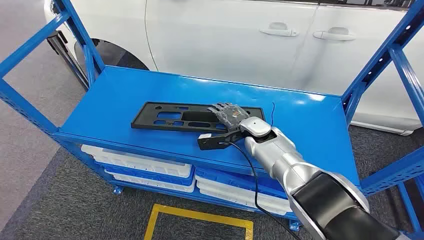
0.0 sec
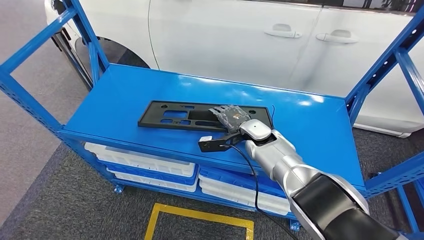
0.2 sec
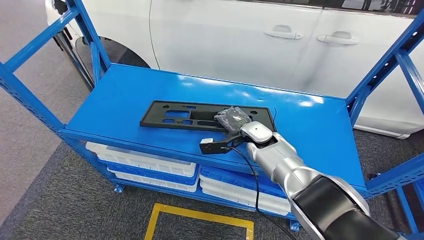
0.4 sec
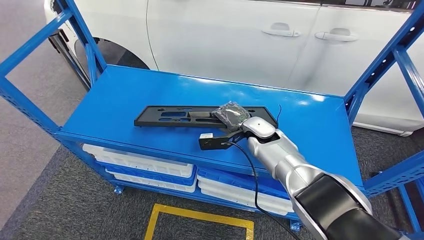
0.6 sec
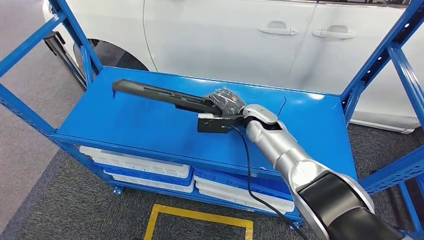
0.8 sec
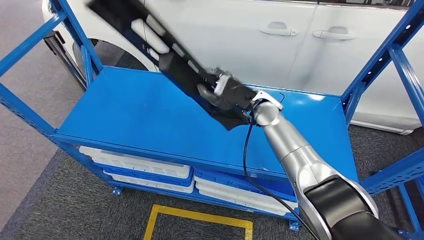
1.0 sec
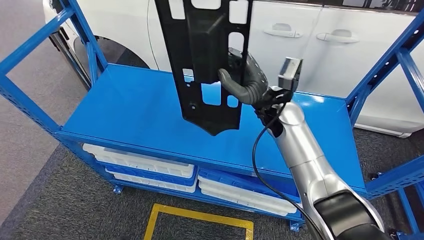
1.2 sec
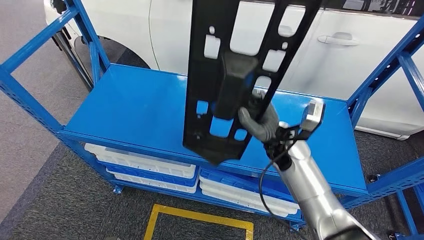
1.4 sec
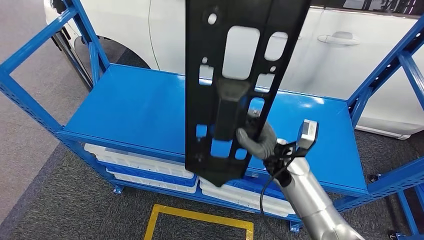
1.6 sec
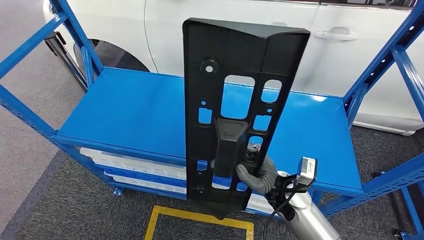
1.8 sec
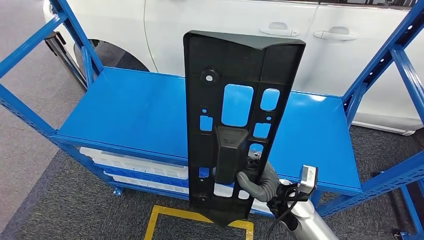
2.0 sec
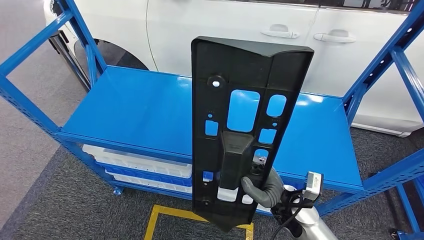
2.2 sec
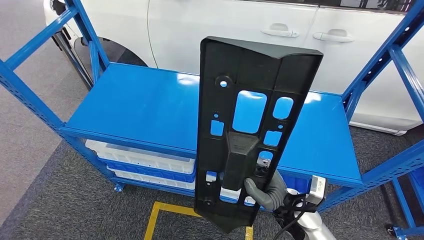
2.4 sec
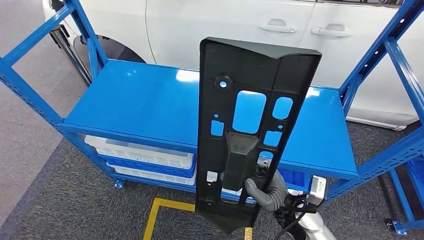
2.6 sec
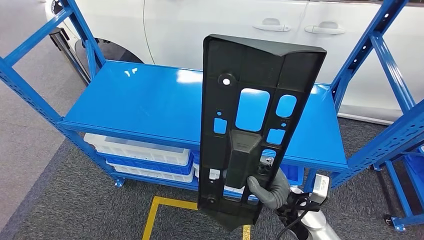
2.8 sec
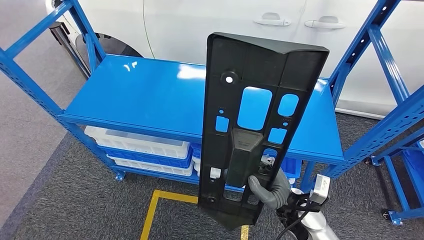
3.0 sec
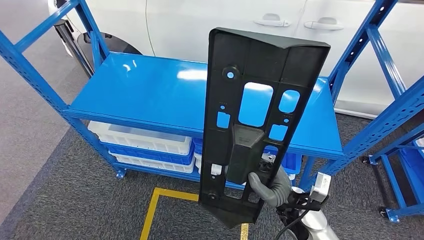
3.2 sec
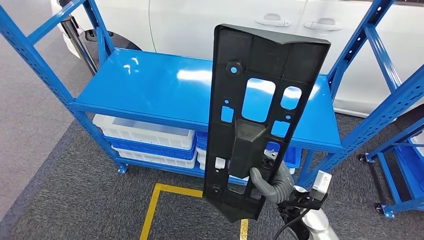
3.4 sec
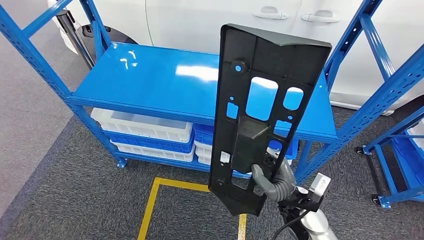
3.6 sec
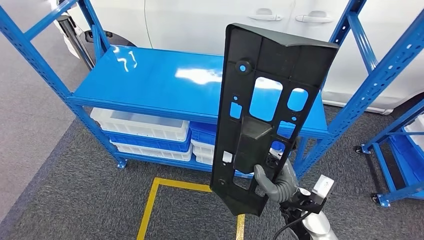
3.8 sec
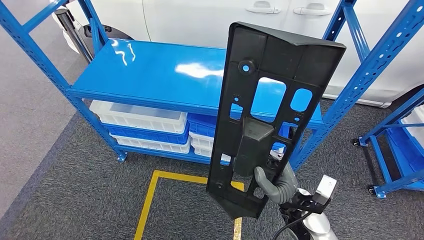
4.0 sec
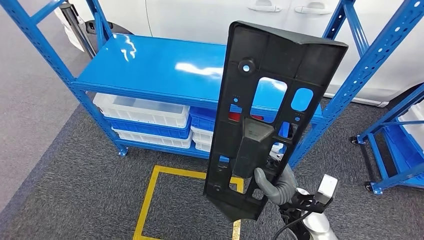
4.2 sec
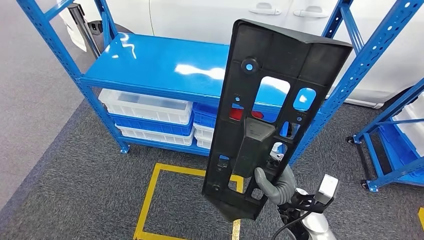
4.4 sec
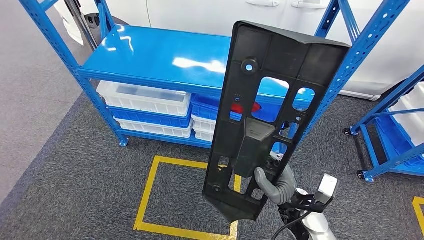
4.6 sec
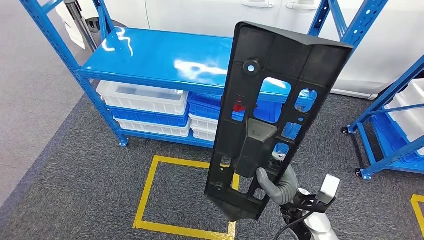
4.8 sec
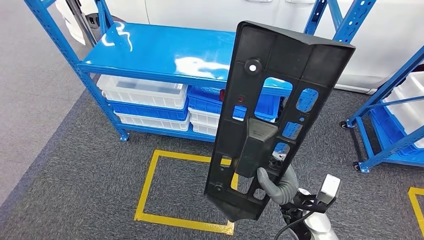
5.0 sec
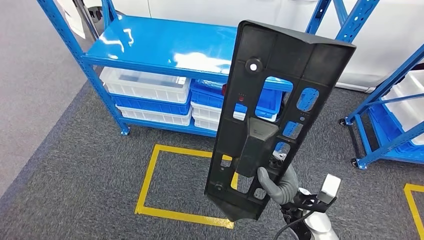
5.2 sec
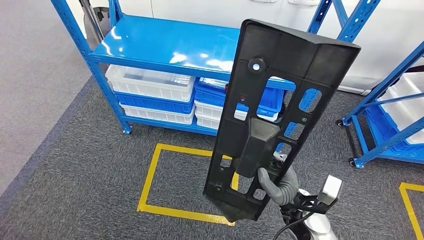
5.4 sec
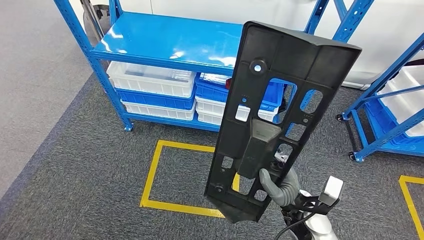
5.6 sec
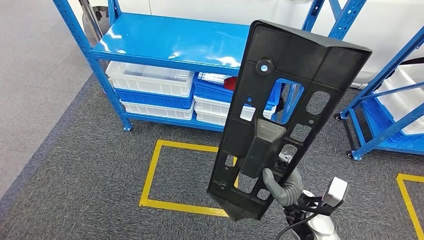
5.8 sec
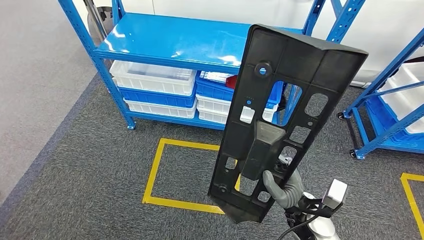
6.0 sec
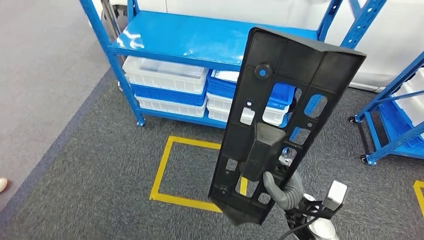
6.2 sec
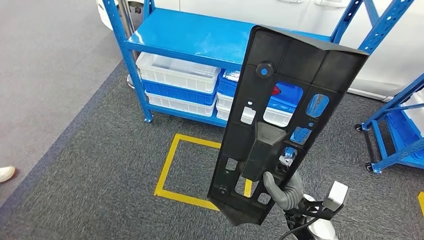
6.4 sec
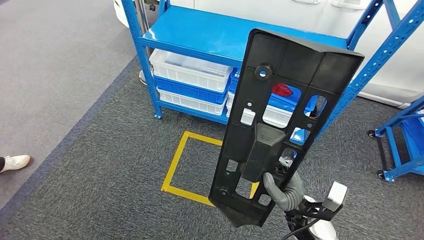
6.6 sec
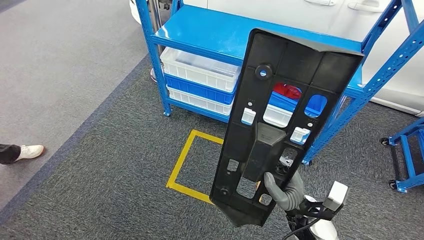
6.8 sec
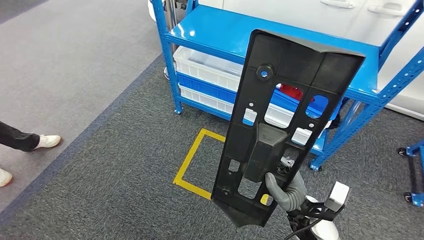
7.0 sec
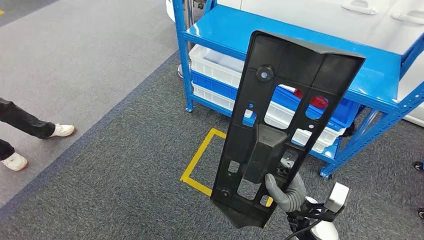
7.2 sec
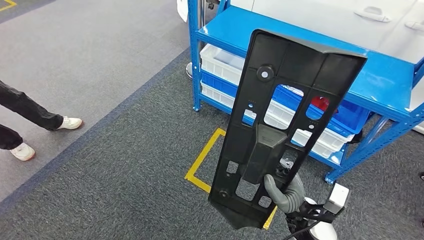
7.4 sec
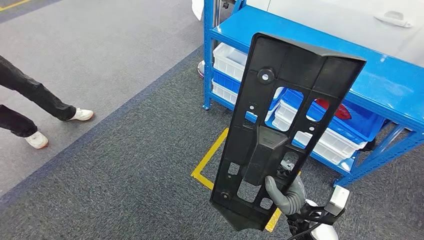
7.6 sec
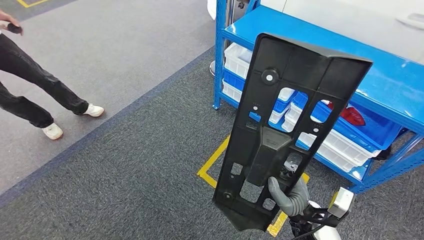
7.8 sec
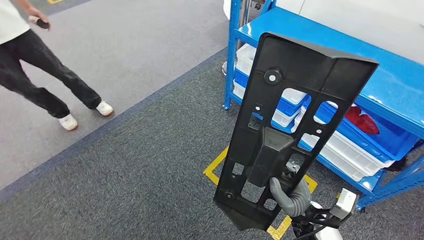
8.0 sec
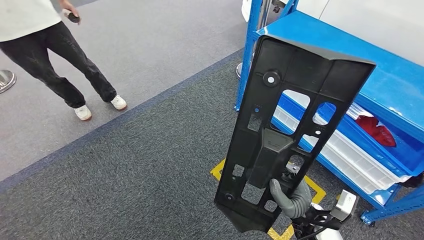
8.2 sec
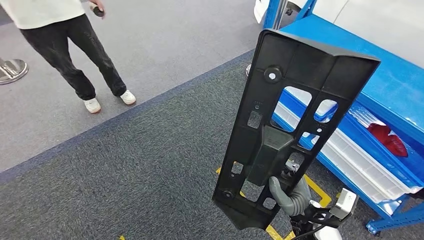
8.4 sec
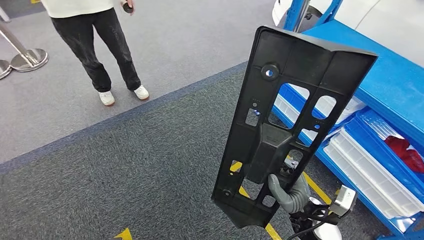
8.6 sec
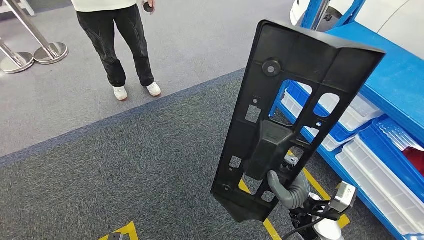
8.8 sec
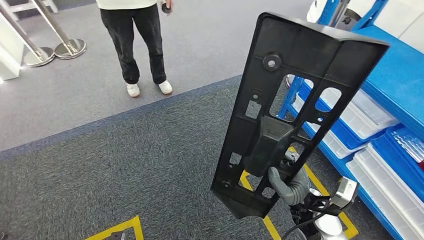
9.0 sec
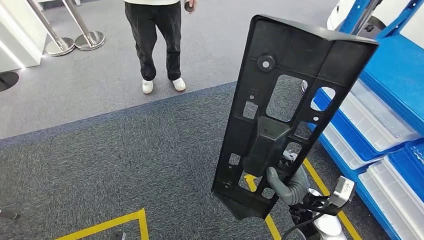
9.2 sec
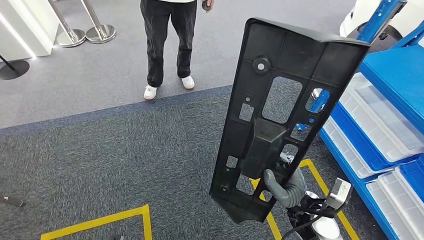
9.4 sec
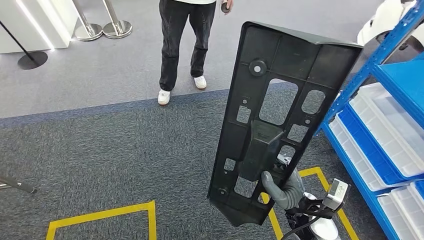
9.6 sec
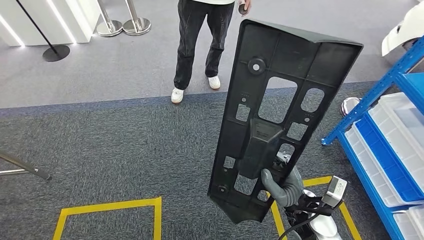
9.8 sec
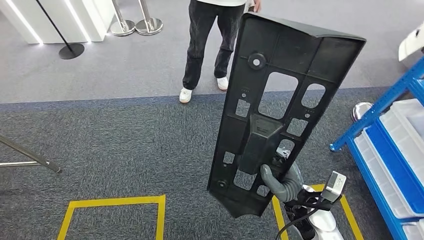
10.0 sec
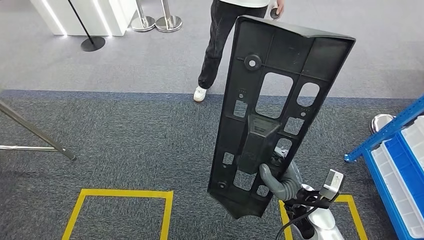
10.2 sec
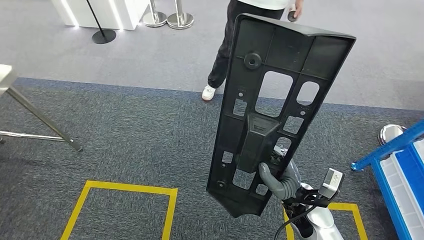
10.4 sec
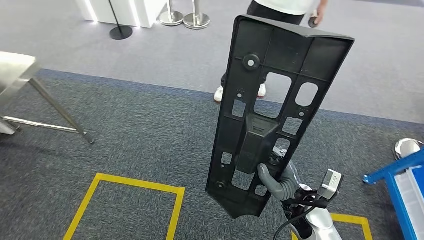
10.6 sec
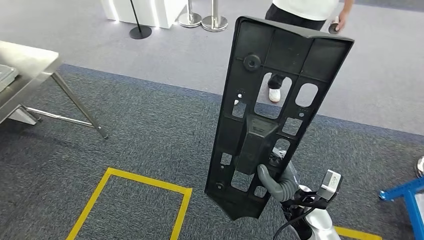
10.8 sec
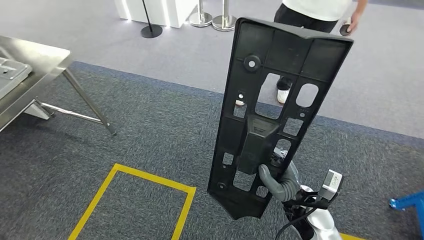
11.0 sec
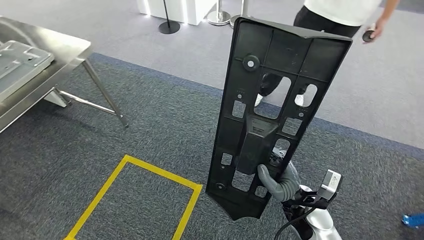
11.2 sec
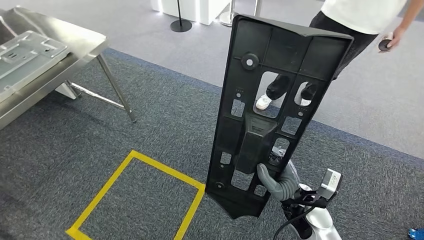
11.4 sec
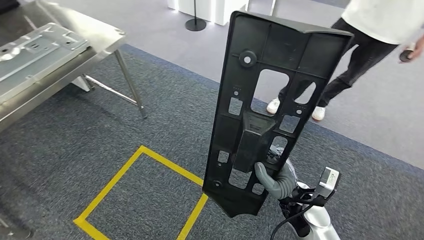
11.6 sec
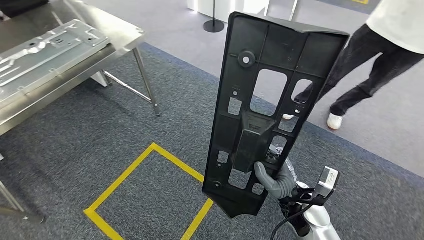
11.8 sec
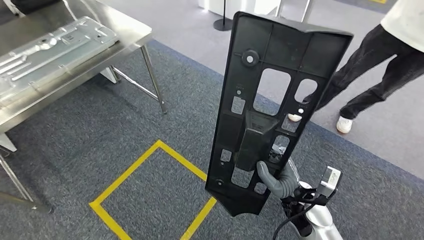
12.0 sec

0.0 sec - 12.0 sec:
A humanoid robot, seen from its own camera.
Step, 0.0 sec - 2.4 sec: Pick up the large material from the shelf.

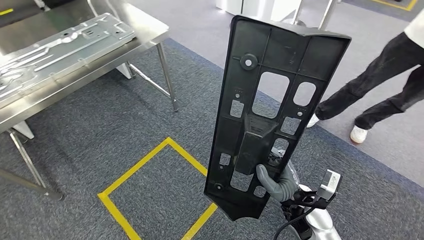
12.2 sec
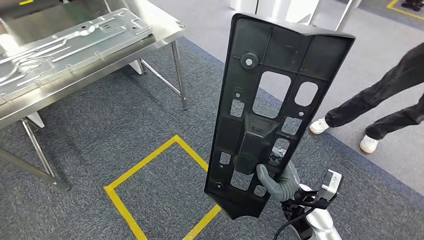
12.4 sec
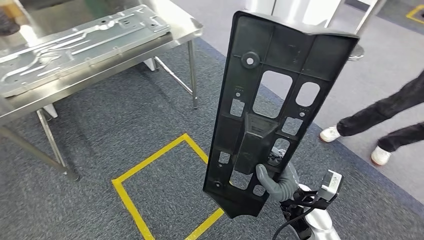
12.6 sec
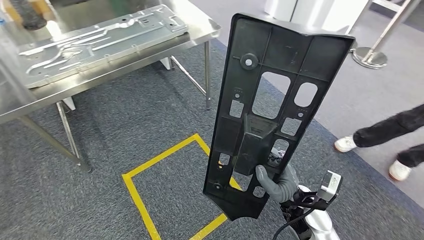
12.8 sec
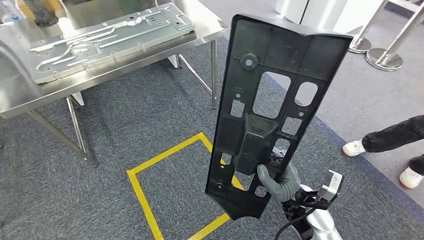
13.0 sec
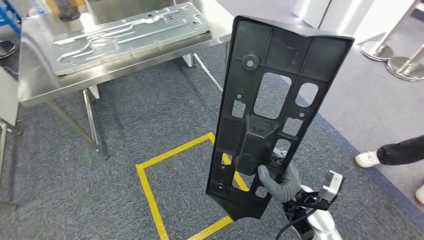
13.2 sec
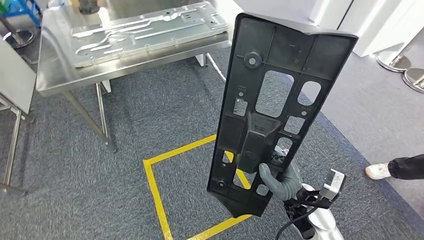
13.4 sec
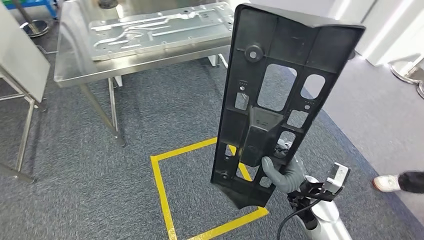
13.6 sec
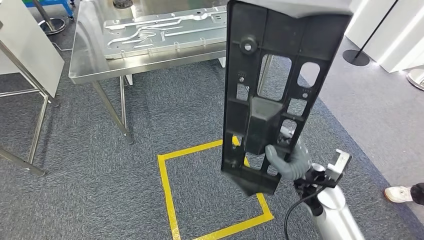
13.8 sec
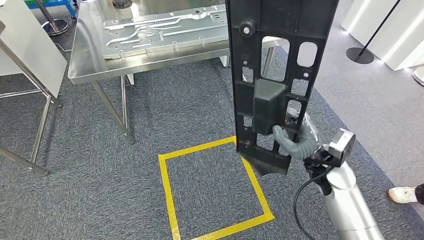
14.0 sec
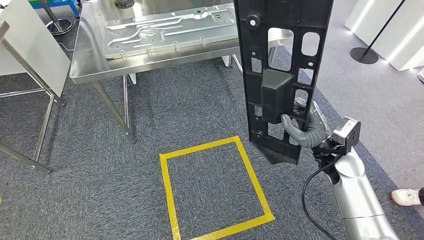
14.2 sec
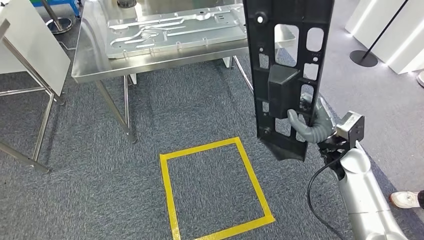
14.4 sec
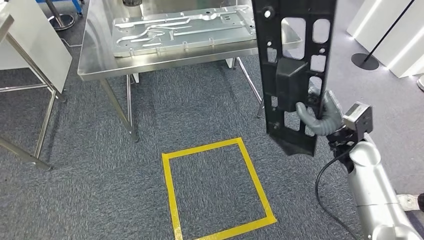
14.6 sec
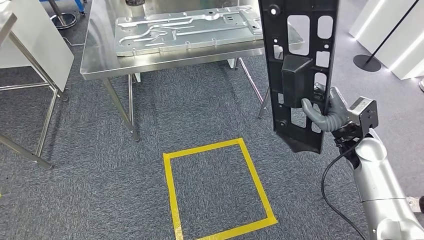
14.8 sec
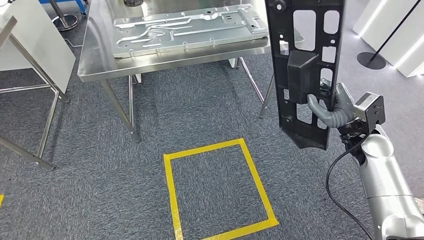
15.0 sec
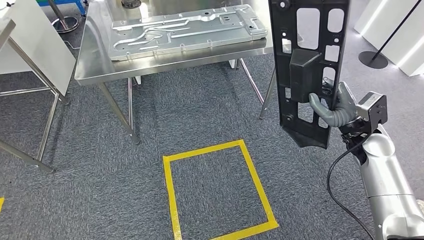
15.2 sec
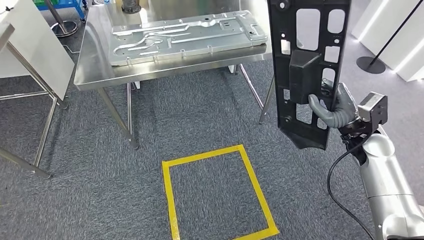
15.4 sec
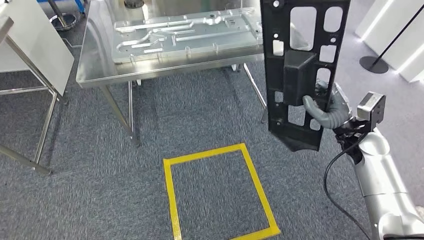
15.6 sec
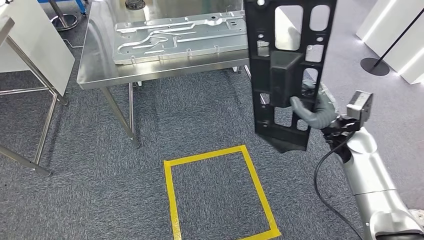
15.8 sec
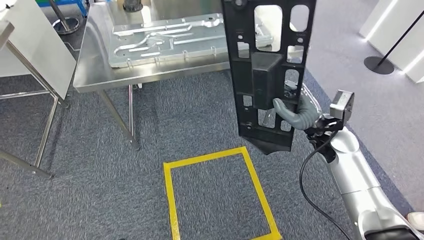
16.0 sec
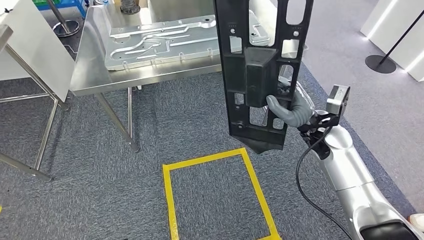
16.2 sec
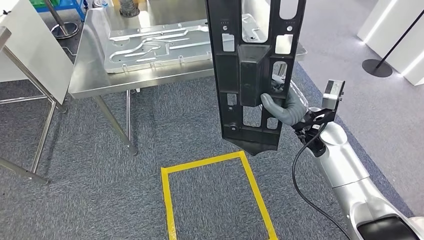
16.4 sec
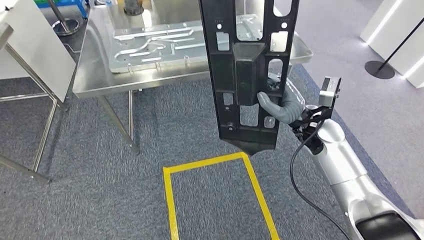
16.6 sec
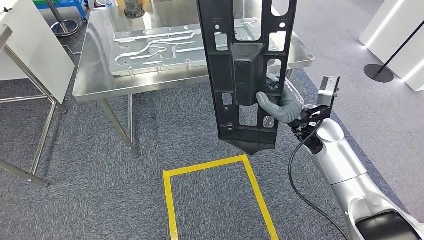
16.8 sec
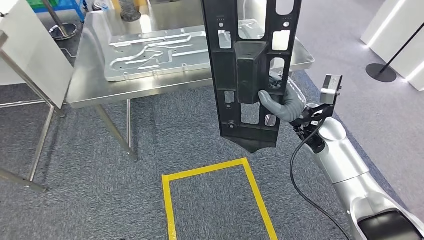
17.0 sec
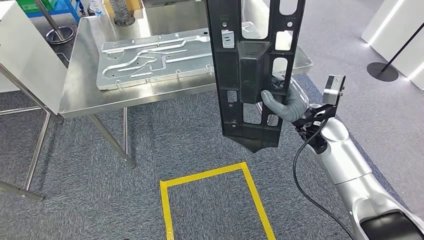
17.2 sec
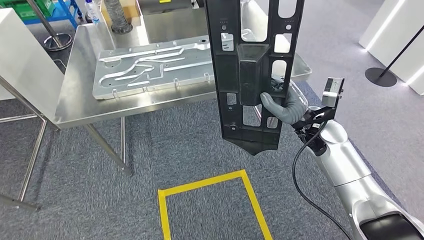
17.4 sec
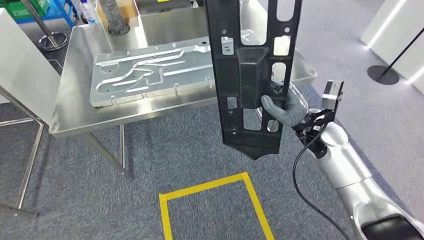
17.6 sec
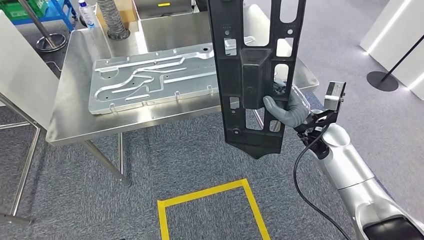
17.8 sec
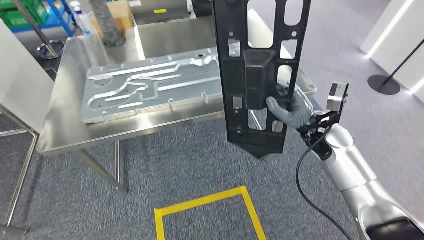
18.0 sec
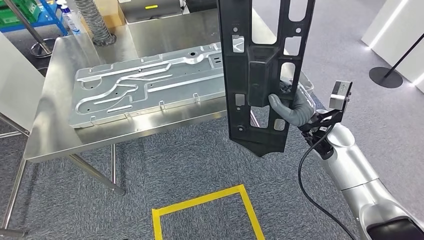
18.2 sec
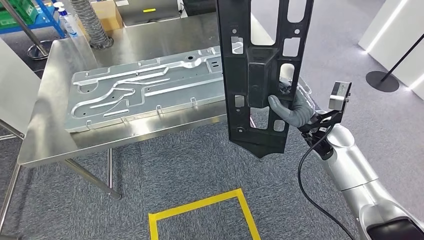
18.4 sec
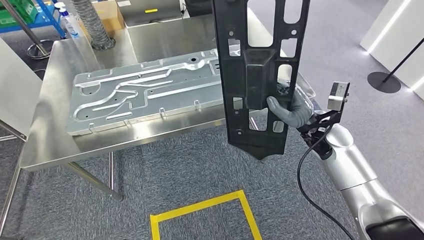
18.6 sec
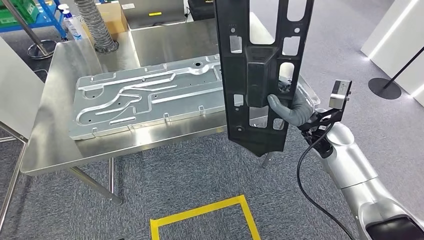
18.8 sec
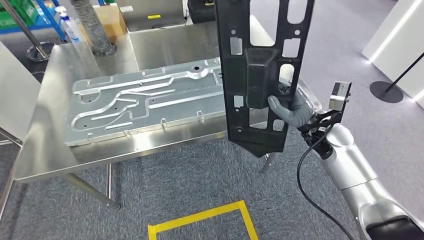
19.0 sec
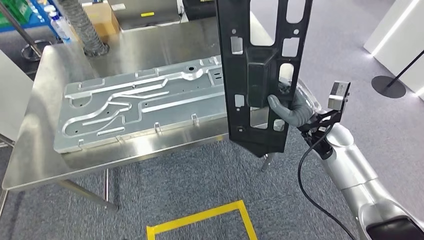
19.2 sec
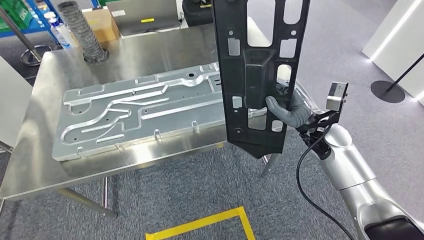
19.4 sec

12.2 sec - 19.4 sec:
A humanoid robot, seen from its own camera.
Step, 12.2 sec - 16.0 sec: Move the large material to the workbench.
